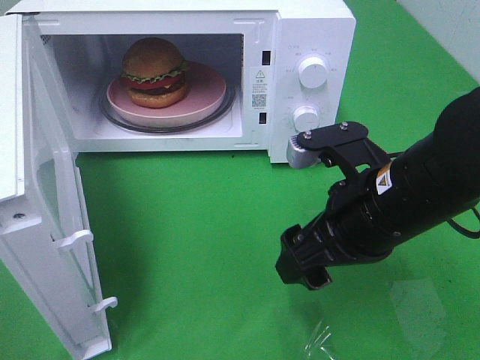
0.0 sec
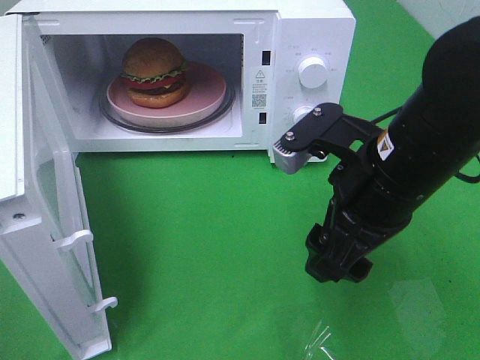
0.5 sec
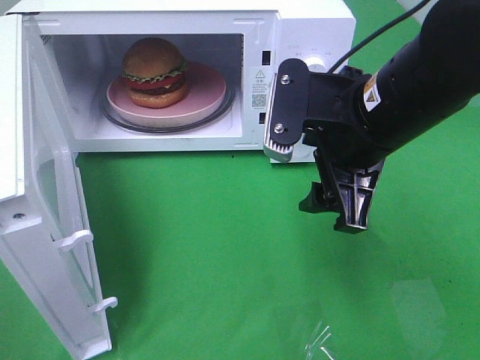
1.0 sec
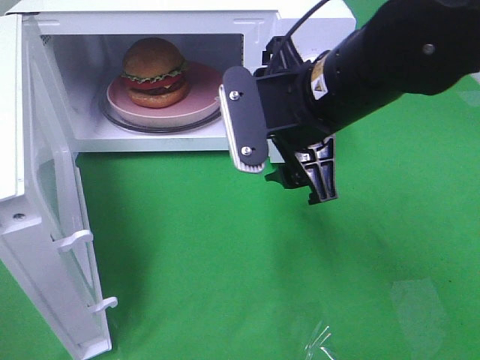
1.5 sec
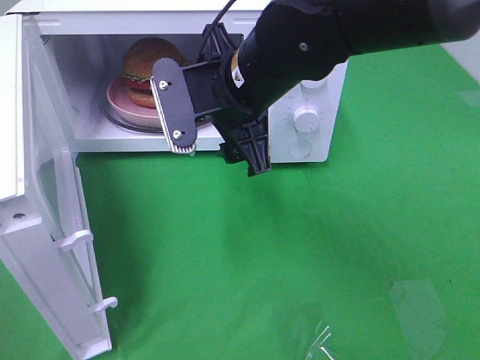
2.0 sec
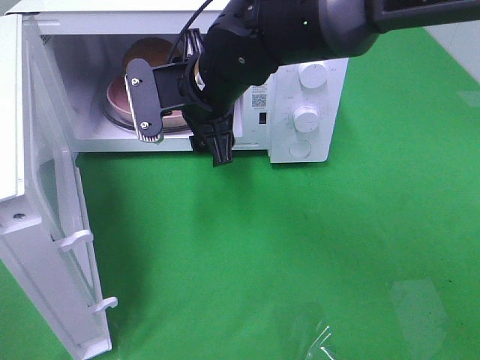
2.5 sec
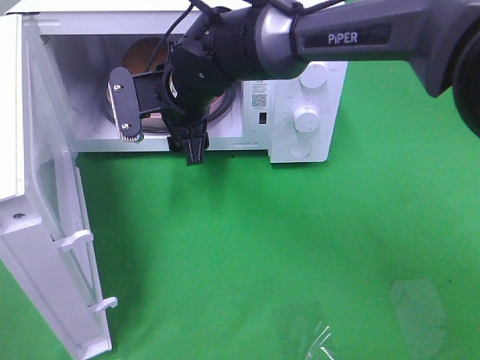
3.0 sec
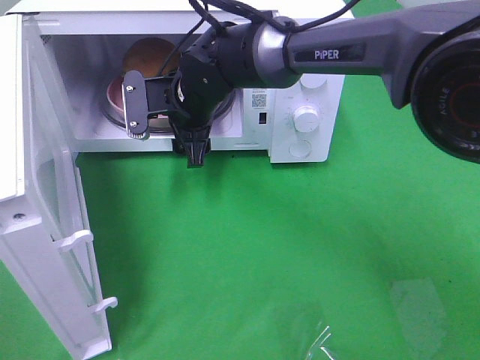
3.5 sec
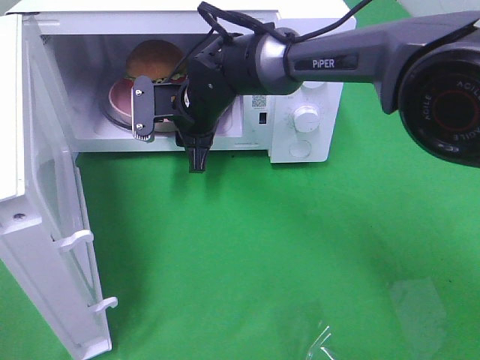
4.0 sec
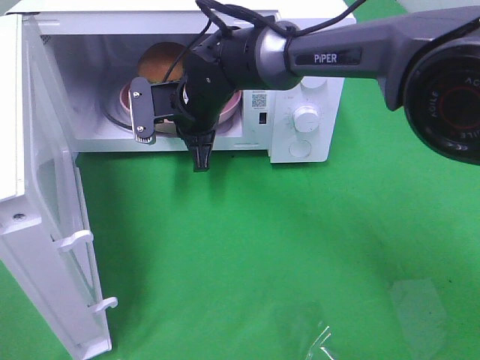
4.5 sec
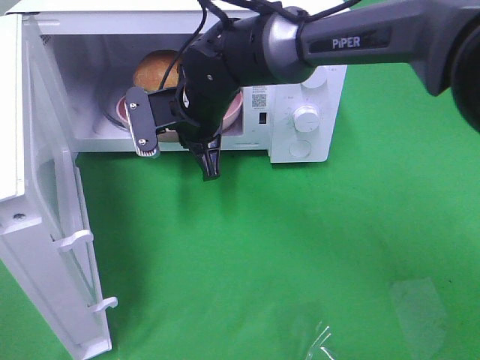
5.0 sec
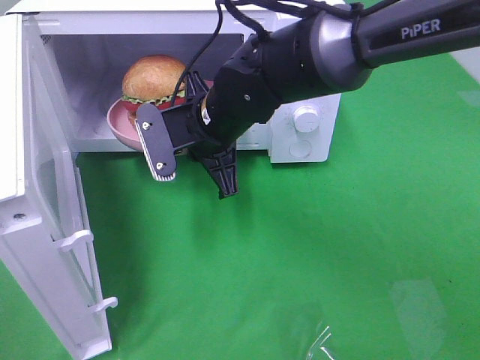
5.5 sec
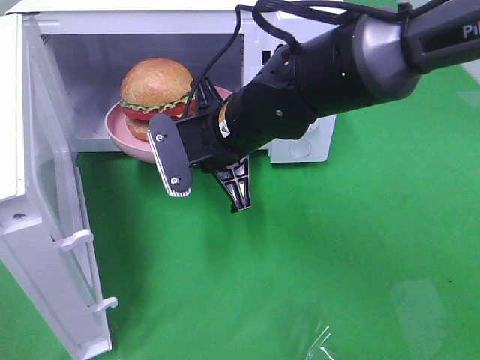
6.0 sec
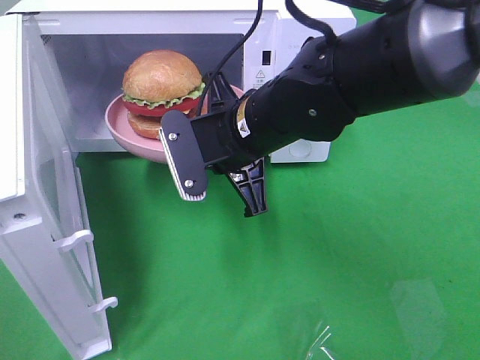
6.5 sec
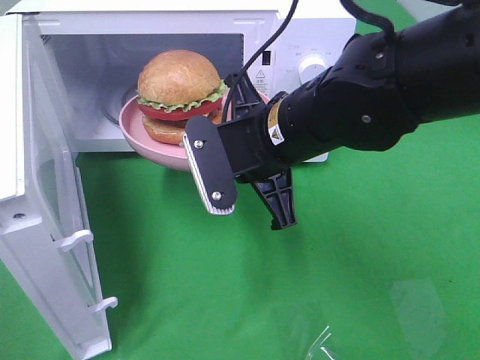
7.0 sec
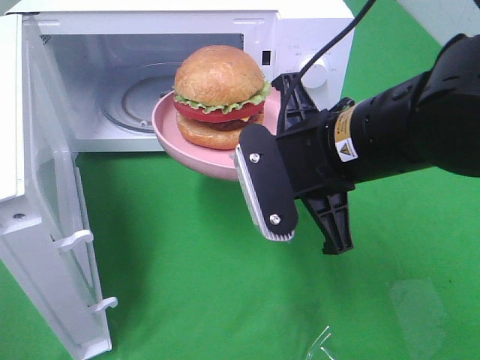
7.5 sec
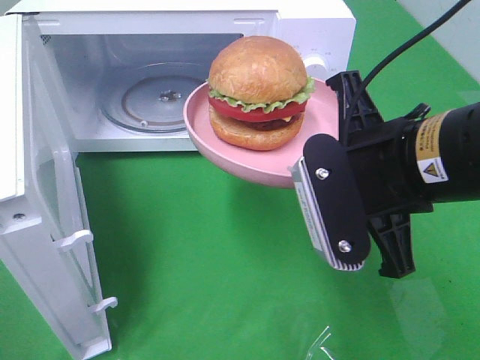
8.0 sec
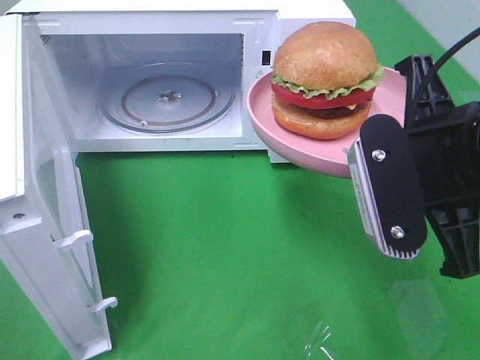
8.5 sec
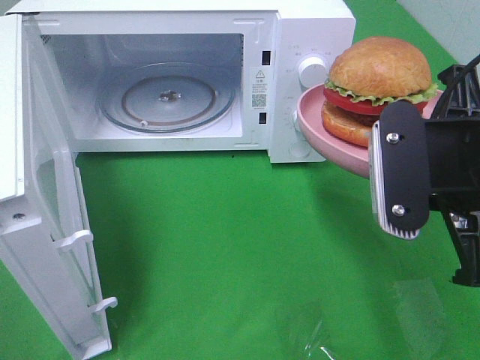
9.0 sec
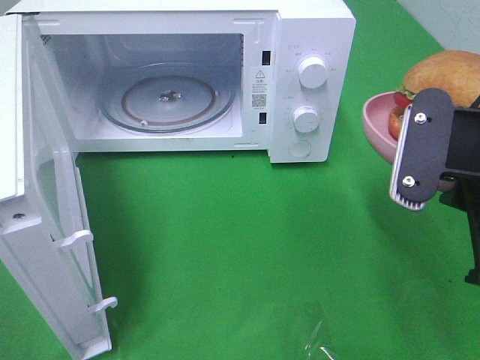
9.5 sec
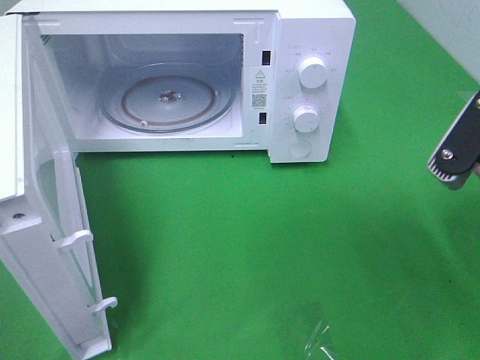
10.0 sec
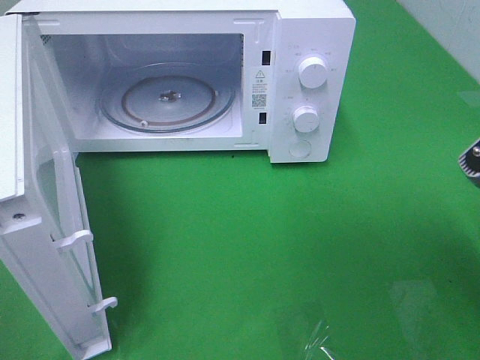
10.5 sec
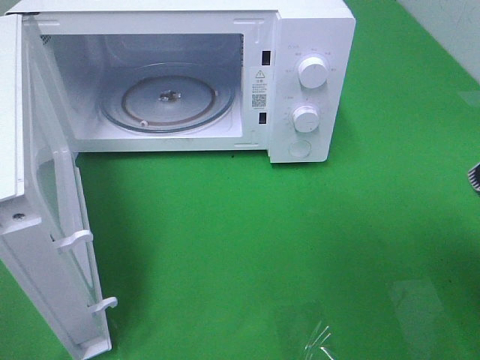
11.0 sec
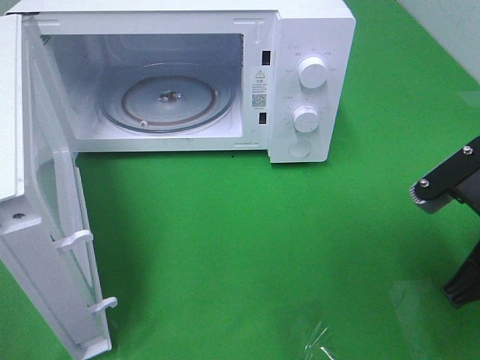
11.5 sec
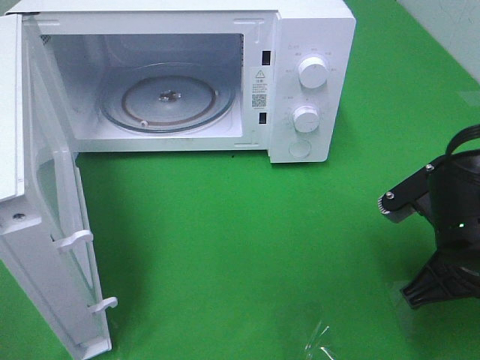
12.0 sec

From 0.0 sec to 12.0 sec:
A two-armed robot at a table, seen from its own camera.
Task of the whole recording: Heat the burger.
Step, from 0.0 sec to 4.0 sec: Right hand: grab the plate with the hamburger.
From 0.0 sec to 2.0 sec: The right gripper is displaced to the left, forward and upward by approximately 15 cm.
From 2.0 sec to 4.0 sec: The right gripper travels forward, downward and to the left by about 15 cm, and closes its fingers.
From 4.0 sec to 6.0 sec: The right gripper heads backward, covering approximately 10 cm, and closes up.
From 6.0 sec to 8.0 sec: The right gripper travels backward, to the right and upward by about 20 cm.
From 8.0 sec to 10.0 sec: The right gripper is displaced to the right by some 10 cm.
From 10.0 sec to 12.0 sec: The right gripper moves downward, some 10 cm.

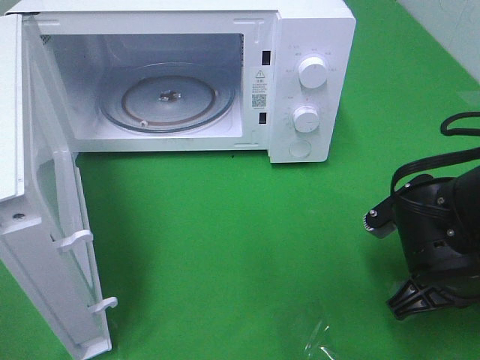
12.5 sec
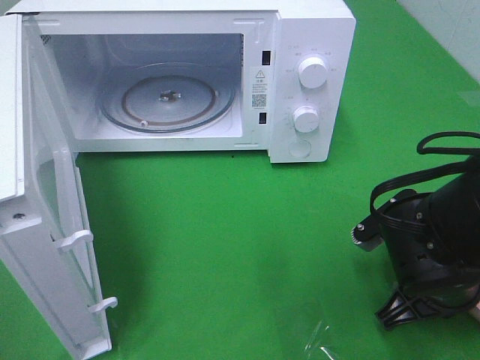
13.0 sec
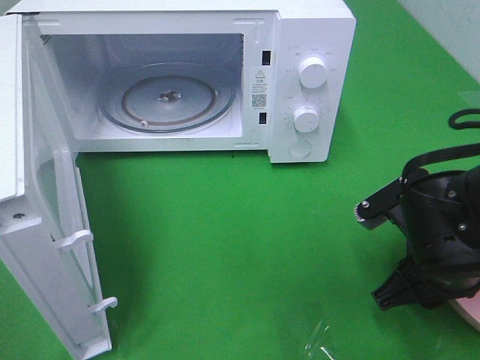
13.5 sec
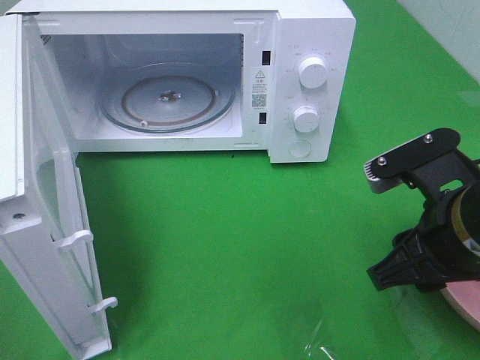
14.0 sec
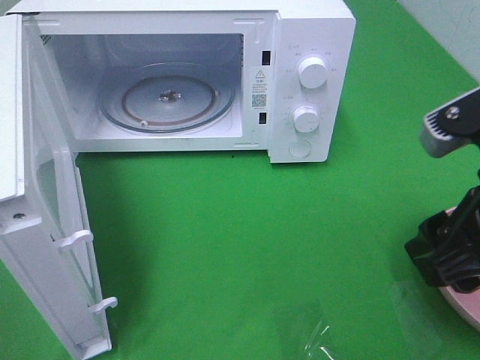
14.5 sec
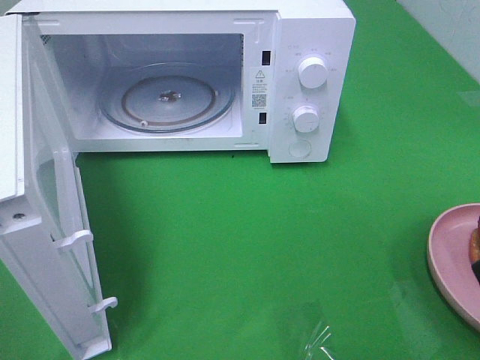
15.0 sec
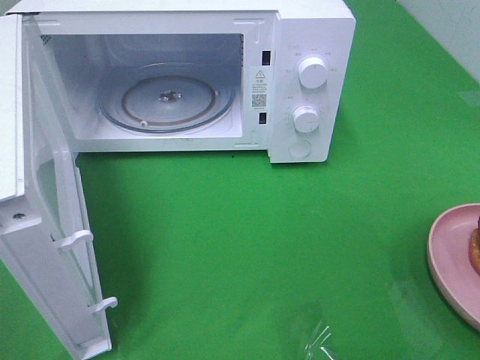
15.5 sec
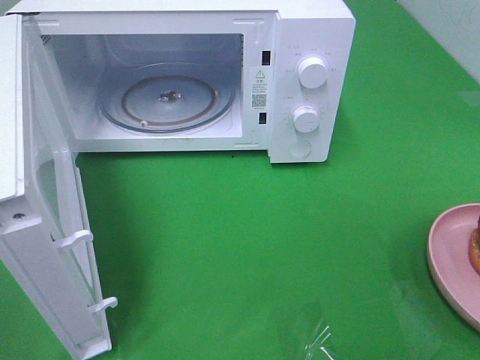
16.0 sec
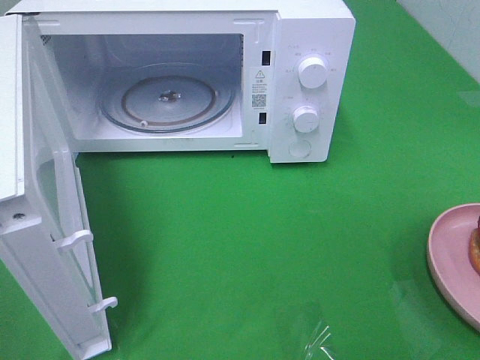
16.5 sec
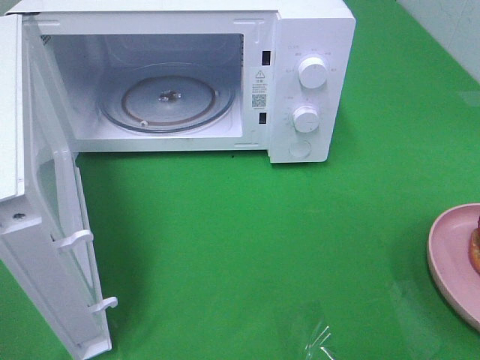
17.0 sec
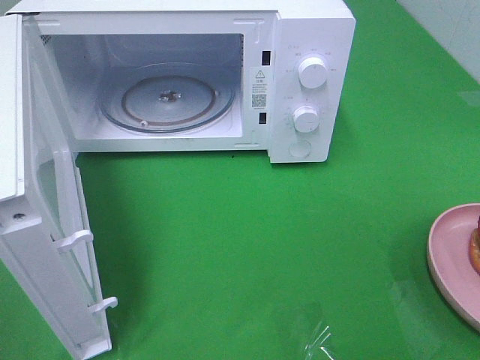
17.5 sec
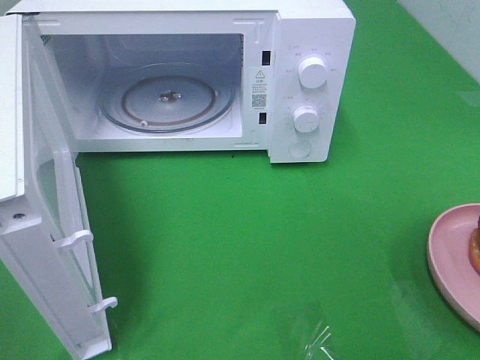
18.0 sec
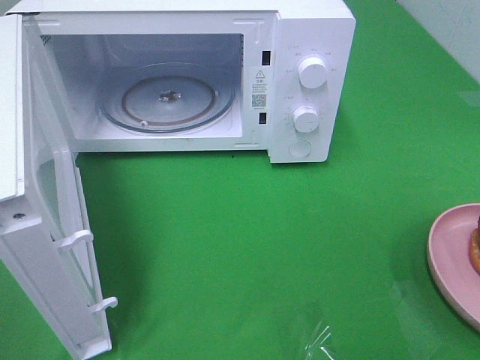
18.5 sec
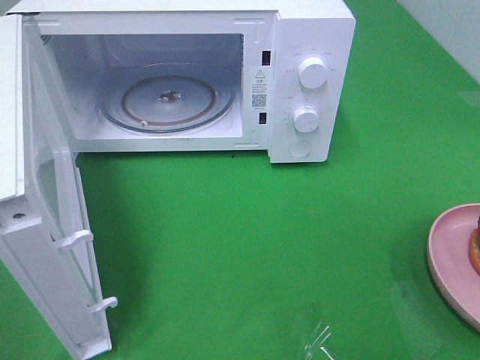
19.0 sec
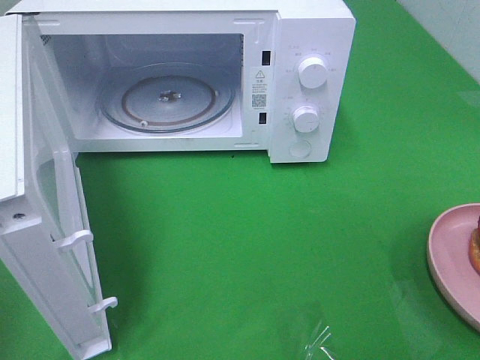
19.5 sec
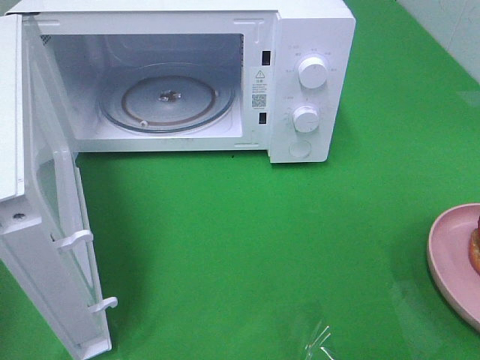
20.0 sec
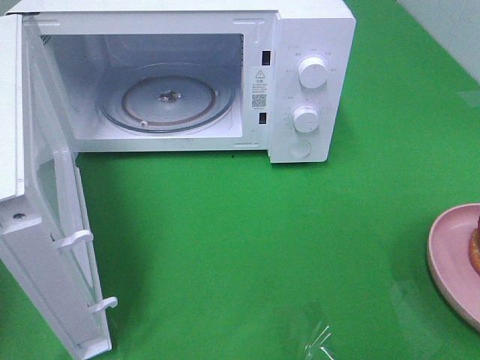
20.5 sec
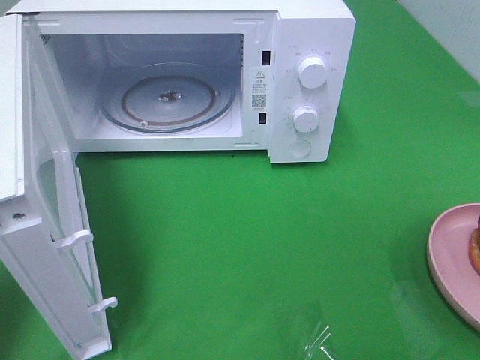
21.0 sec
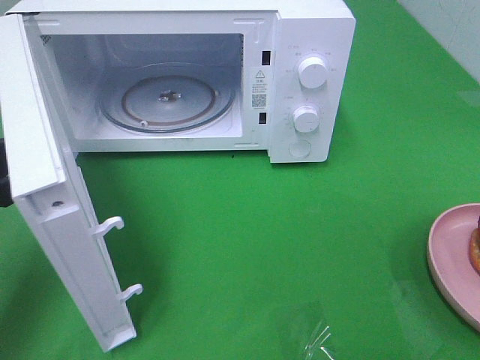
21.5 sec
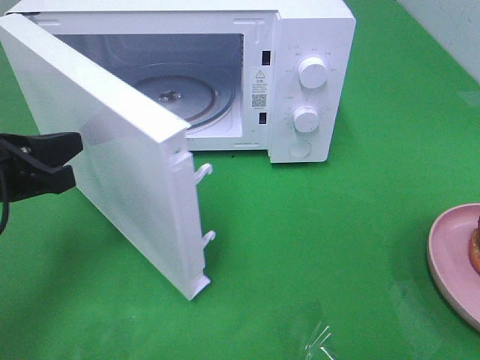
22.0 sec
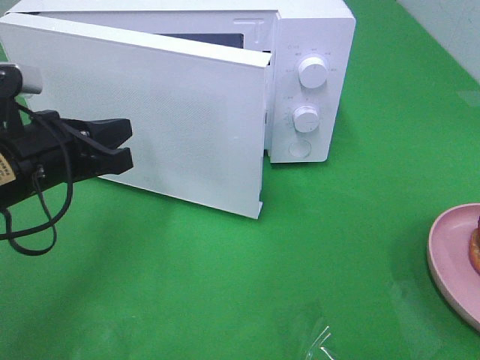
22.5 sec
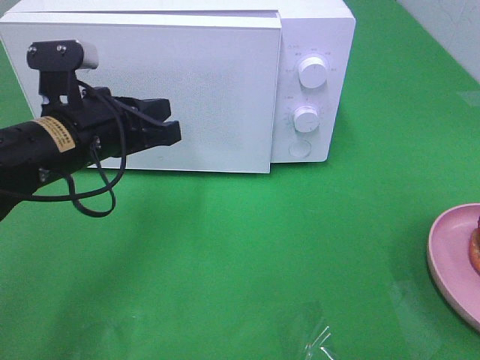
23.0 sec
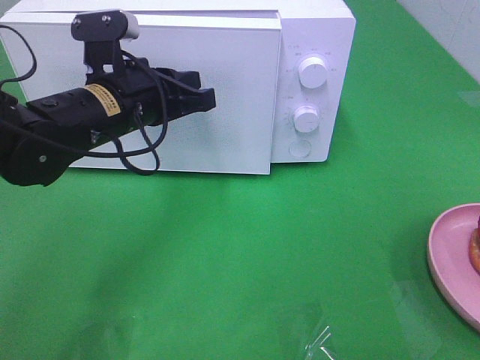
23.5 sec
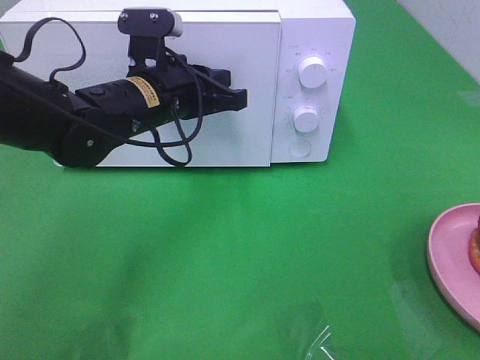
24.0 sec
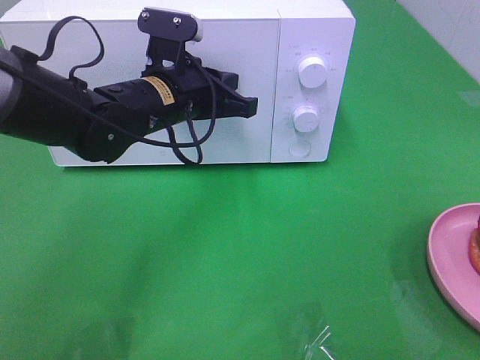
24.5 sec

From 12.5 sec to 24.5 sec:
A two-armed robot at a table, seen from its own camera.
Task of the whole recording: Heat the burger.
From 12.5 sec to 14.5 sec: The right gripper heads upward, covering approximately 15 cm, and opens.
From 14.5 sec to 16.5 sec: The right gripper moves backward and to the right, about 15 cm.
From 16.5 sec to 18.5 sec: Both grippers stay about where they are.
From 20.5 sec to 22.5 sec: The left gripper moves to the right, forward and downward, approximately 20 cm.
From 22.5 sec to 24.5 sec: The left gripper heads to the right and forward, covering some 15 cm.

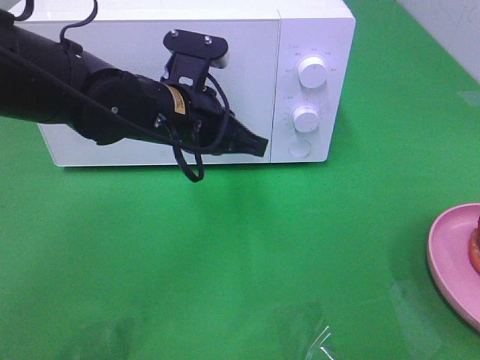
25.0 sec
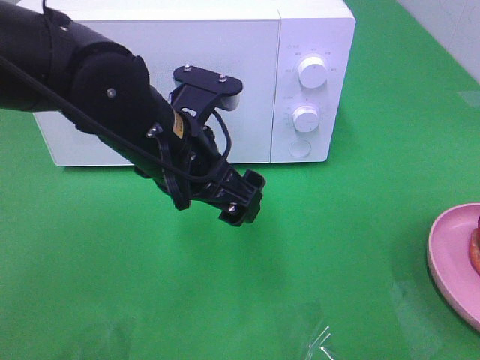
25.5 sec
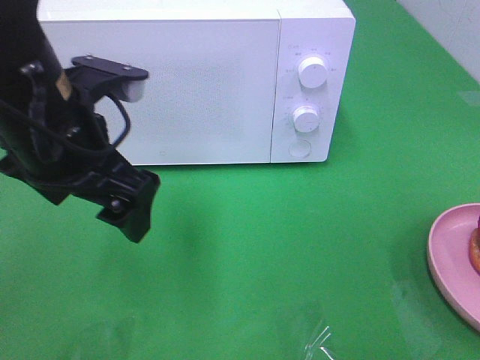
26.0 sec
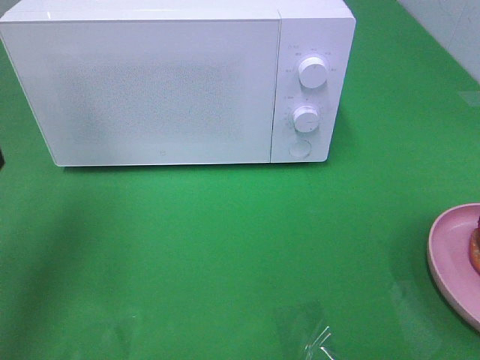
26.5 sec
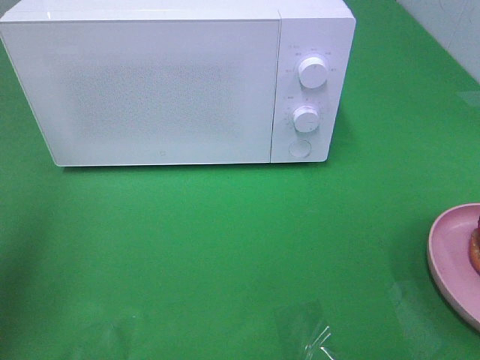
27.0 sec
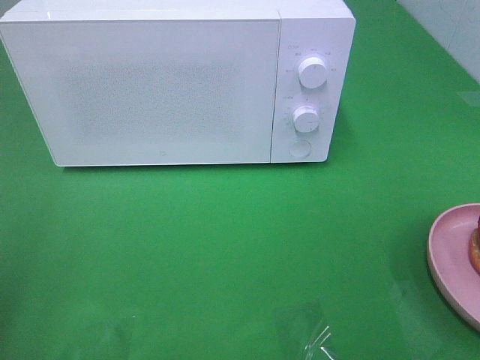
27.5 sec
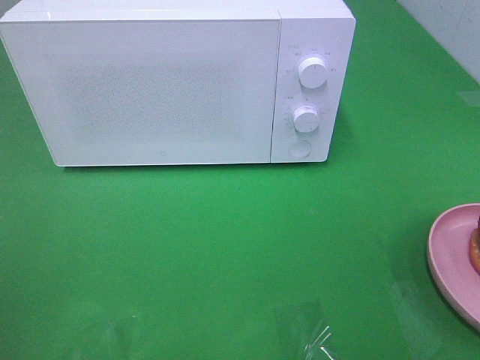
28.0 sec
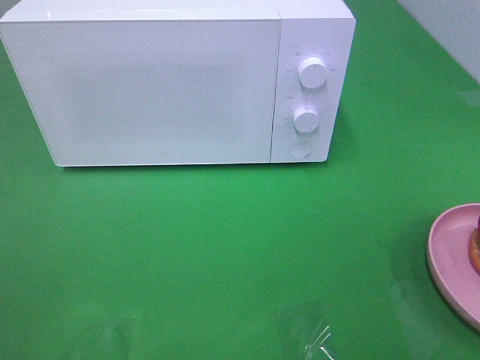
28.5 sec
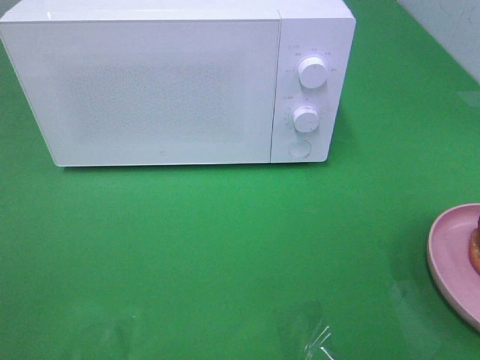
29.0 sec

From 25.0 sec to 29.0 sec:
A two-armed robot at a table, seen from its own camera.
Task of the whole recording: Heat the burger.
From 25.0 sec to 27.0 sec: The left gripper heads to the left, upward and backward, covering some 30 cm, and opens.
From 27.0 sec to 29.0 sec: The left gripper moves backward, about 20 cm.
